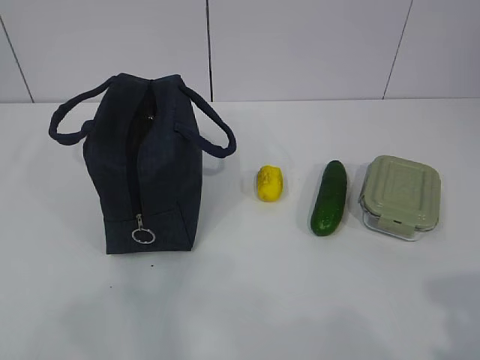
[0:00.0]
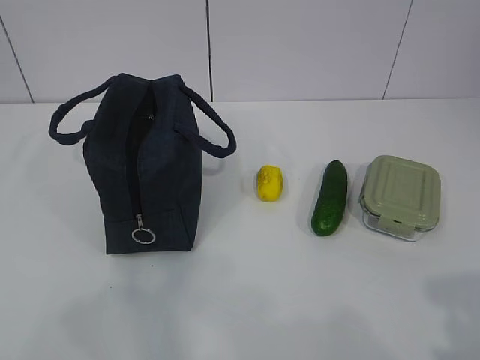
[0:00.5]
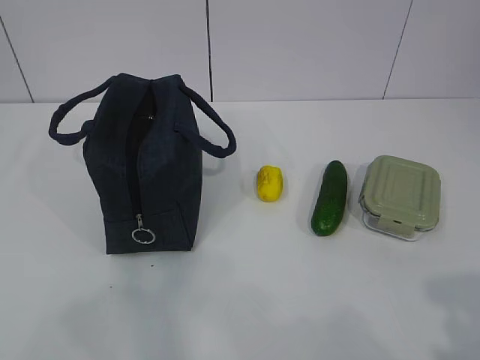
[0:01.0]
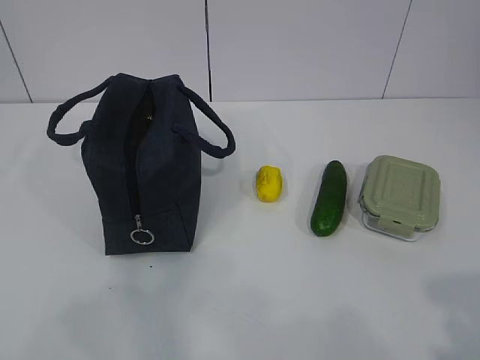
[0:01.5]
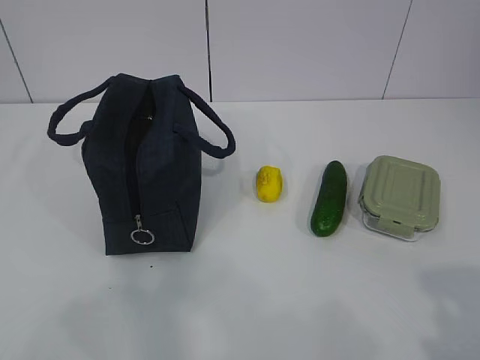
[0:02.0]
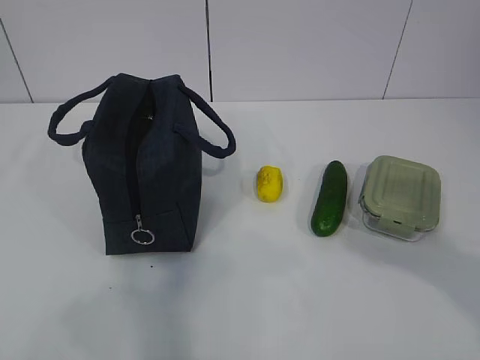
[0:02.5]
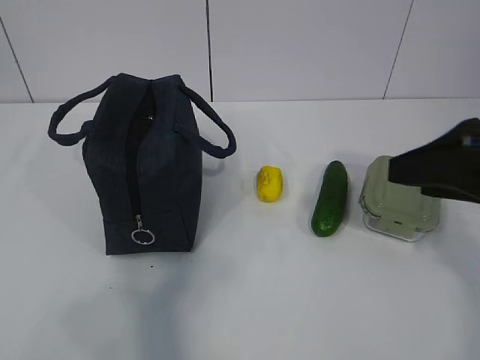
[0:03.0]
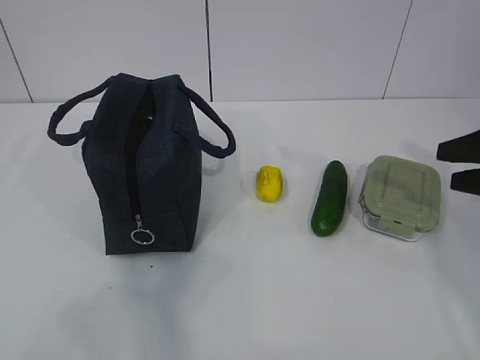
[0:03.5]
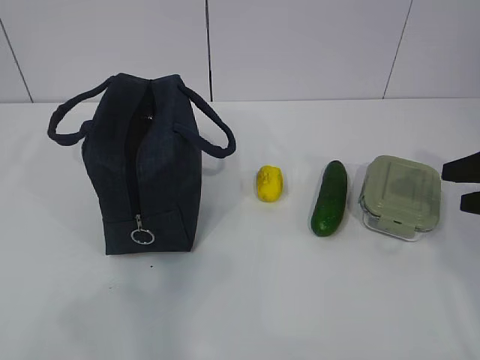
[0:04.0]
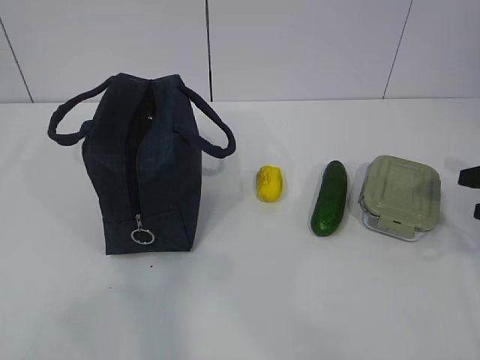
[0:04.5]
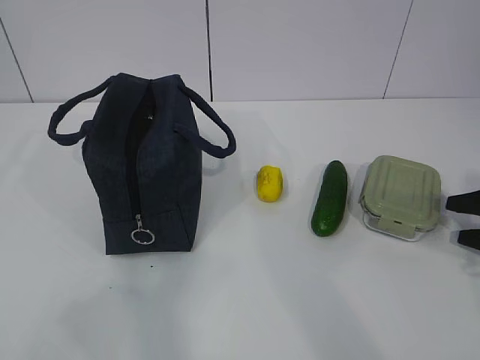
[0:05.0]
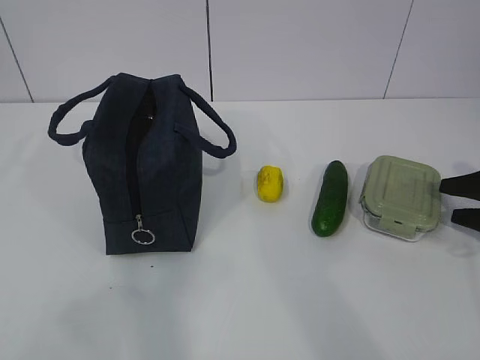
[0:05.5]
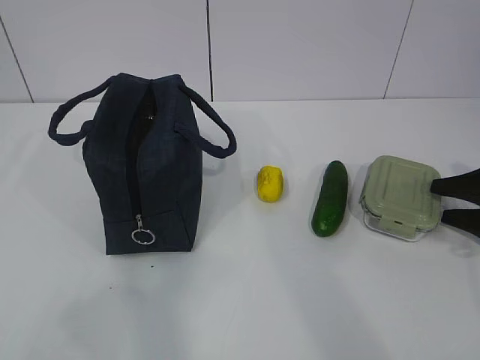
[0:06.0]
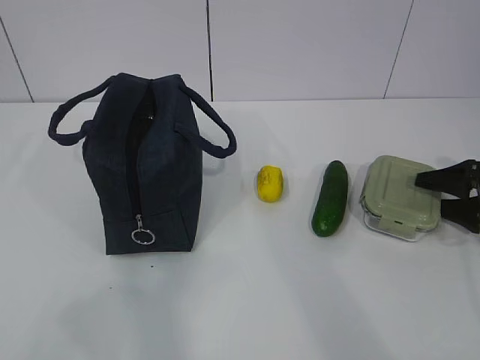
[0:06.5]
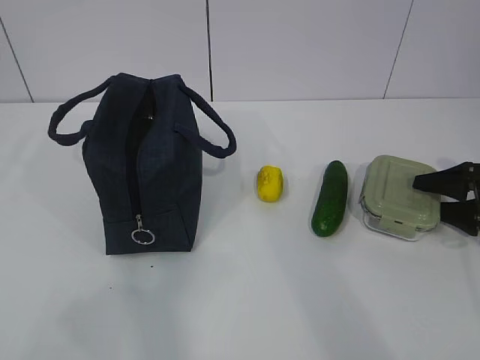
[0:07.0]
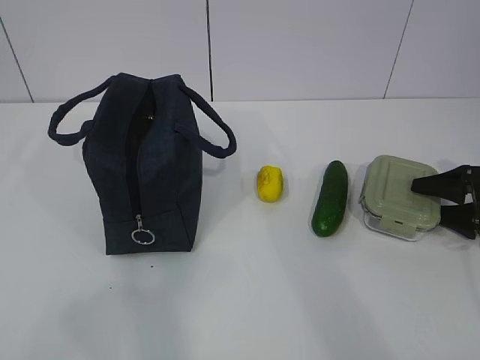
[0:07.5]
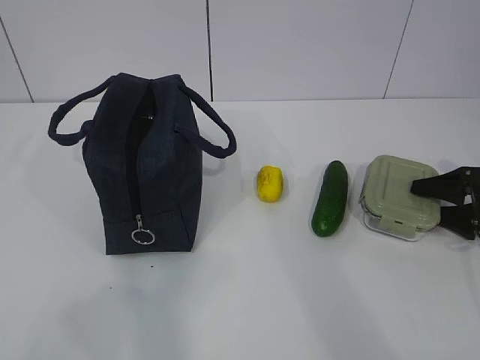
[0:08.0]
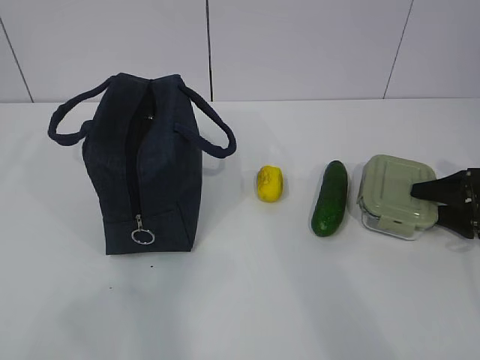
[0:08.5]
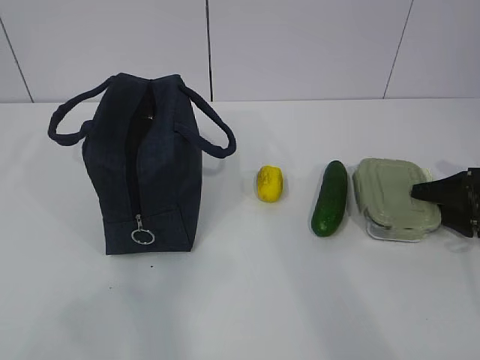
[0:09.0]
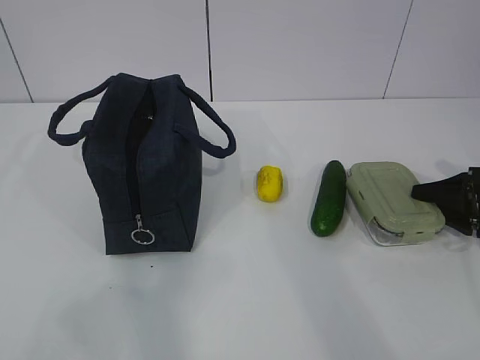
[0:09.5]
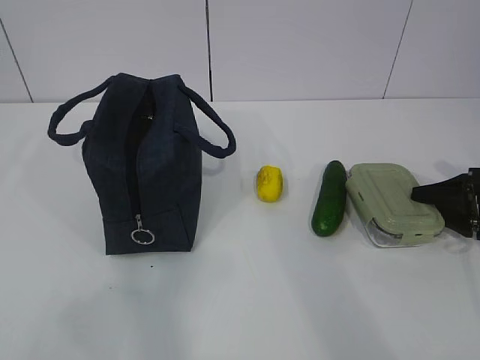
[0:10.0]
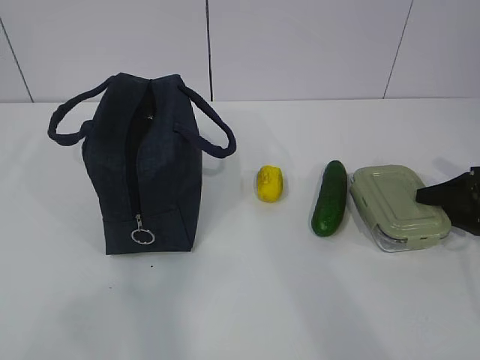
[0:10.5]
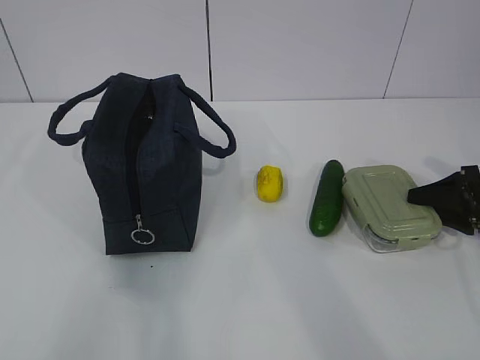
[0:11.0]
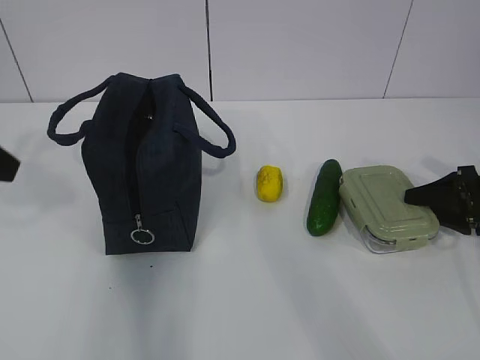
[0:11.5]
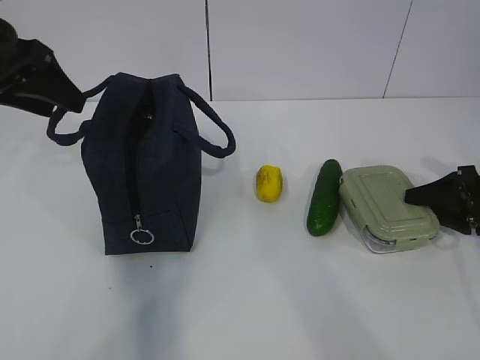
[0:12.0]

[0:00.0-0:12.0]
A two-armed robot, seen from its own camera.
0:02.0 to 0:04.0: The right gripper shifts some 30 cm forward.
0:04.0 to 0:06.0: The right gripper travels downward, forward and to the right by approximately 15 cm.
0:08.0 to 0:10.0: The right gripper closes.
0:10.0 to 0:12.0: The left gripper is displaced forward by some 35 cm, and opens its fingers.

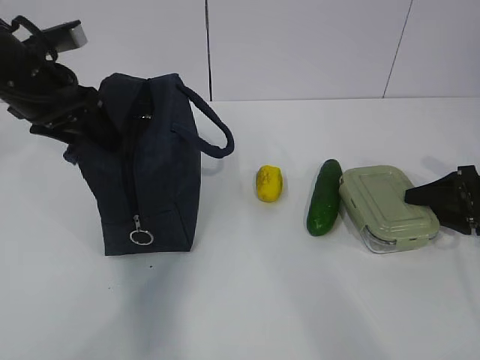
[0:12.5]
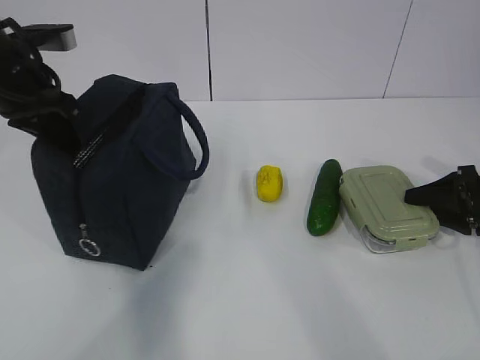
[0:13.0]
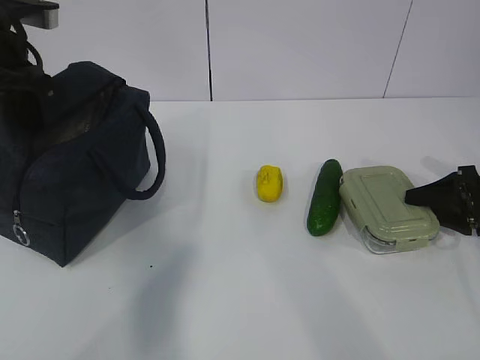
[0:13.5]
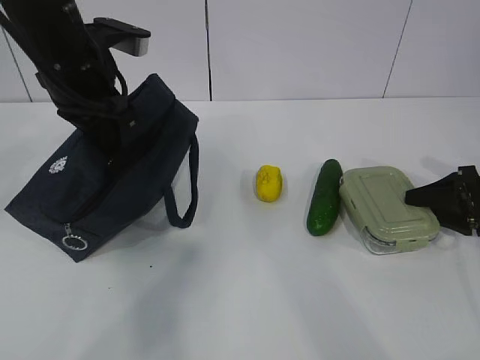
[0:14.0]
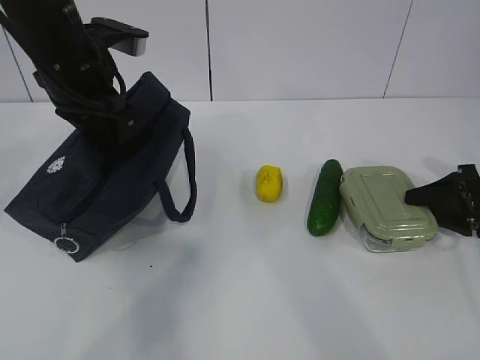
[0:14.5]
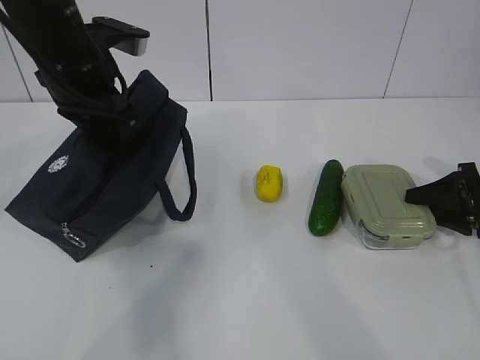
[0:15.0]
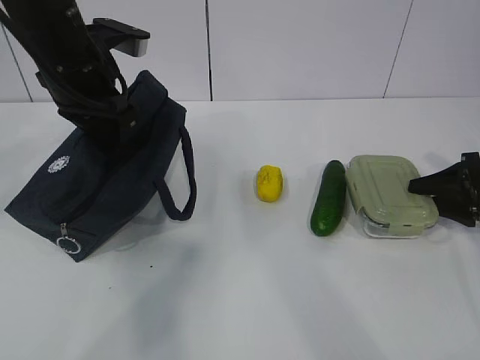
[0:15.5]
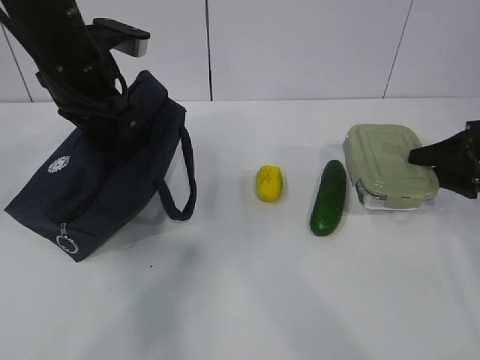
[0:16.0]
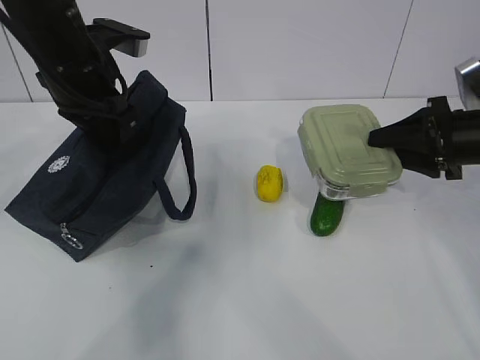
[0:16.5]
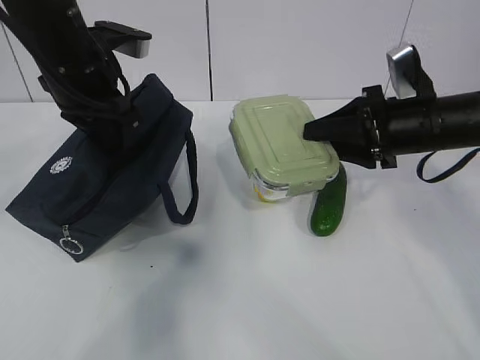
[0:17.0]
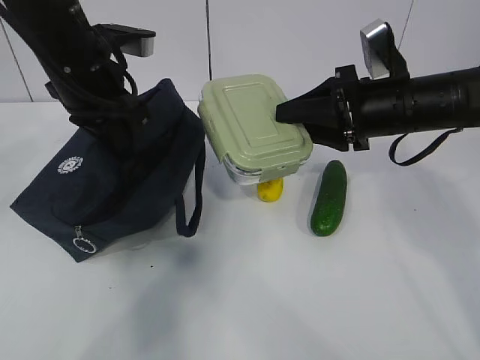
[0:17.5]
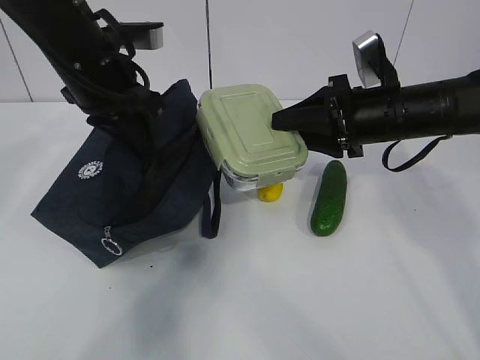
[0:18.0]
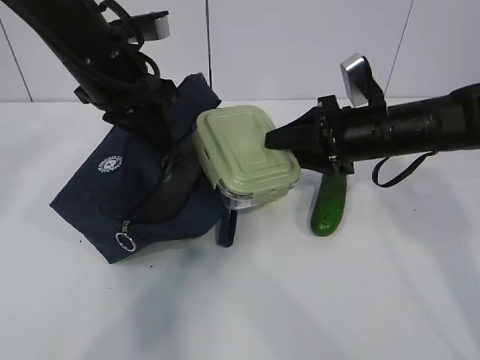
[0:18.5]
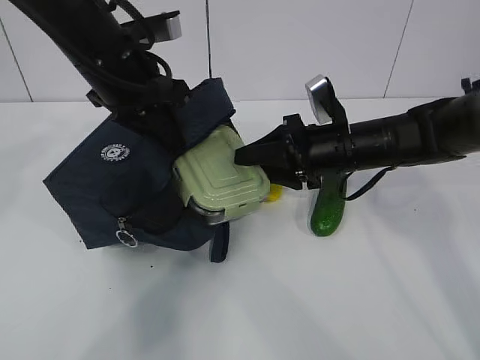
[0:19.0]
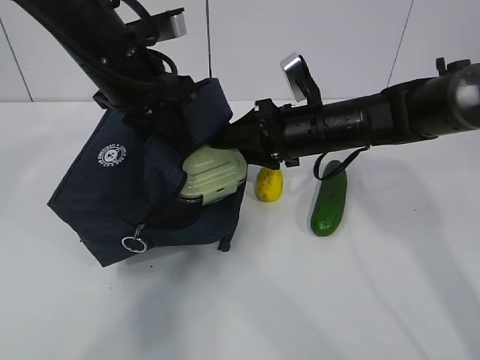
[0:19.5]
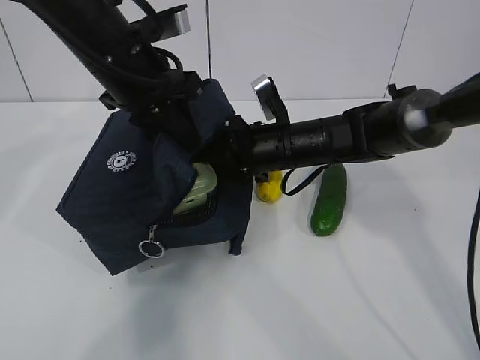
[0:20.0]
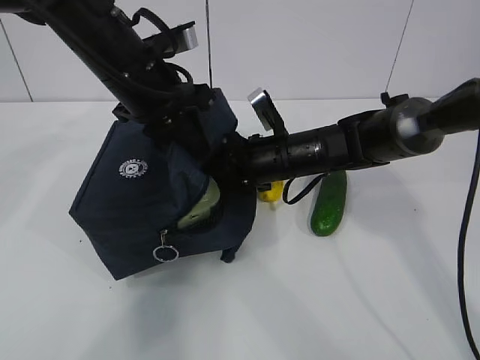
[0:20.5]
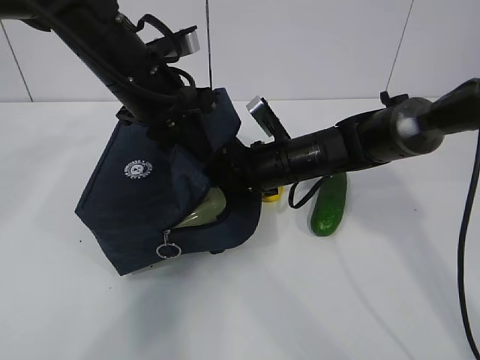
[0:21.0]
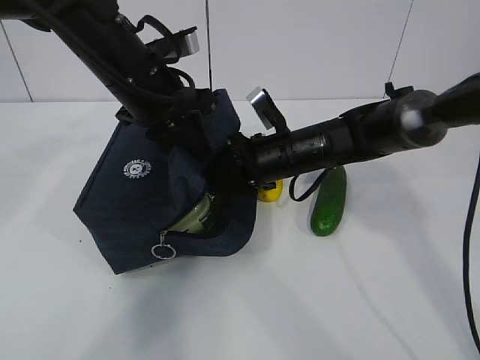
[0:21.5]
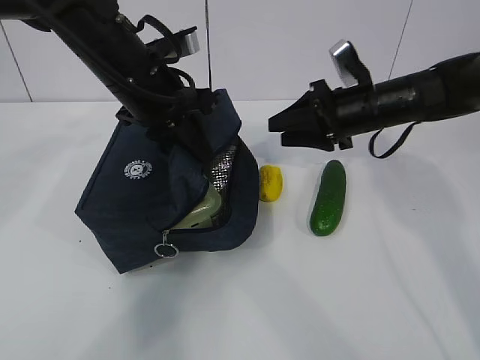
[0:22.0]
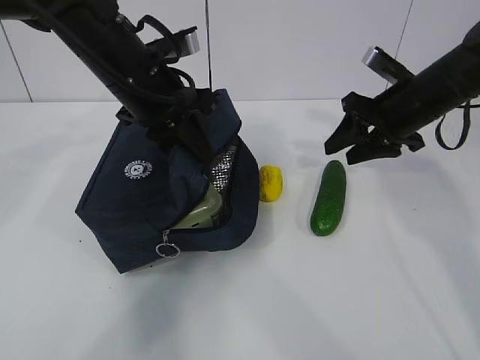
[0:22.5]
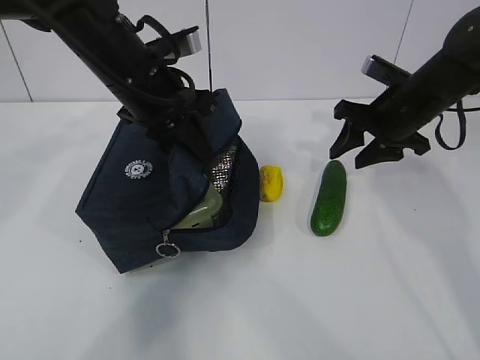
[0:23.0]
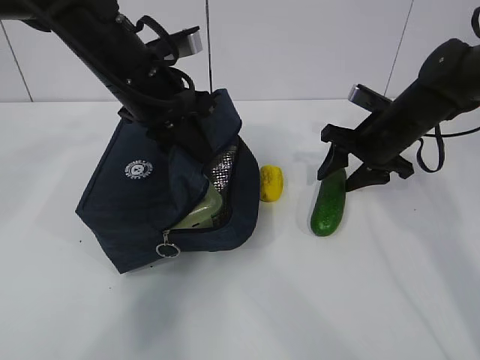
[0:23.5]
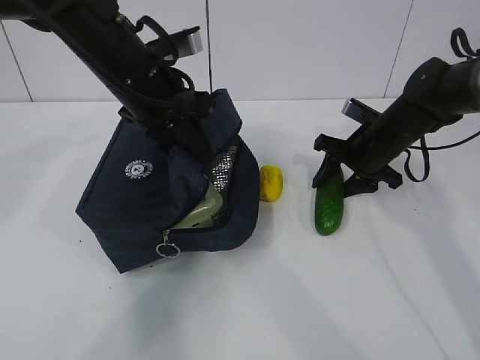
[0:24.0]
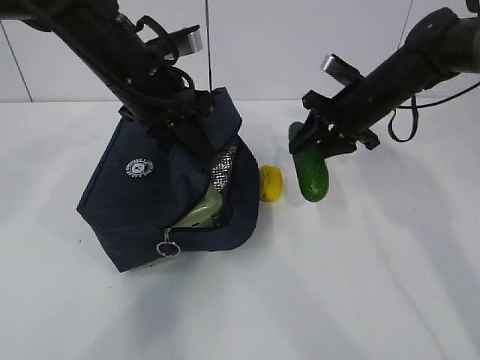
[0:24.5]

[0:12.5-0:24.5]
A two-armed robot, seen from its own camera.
Step, 0:12.5 to 0:15.0: Grab the lunch bag with your left hand.
Step, 0:15.5 to 0:18.0: Place it into the bag with your right hand.
Step, 0:18.5 to 0:20.0: Grab the cucumber with your right hand.
Step, 0:20.5 to 0:22.0: Place it into the bag with your right hand.
Step, 0:22.5 to 0:23.5: Grab the lemon with your right hand.
0:12.5 to 0:14.5: The left gripper moves to the right, some 5 cm, and closes up.
0:14.5 to 0:16.5: The right gripper heads upward and to the left, covering roughly 10 cm.
0:16.5 to 0:18.5: The right gripper shifts roughly 10 cm to the left.
0:18.5 to 0:20.5: The right gripper is displaced to the left and downward by roughly 10 cm.
0:20.5 to 0:22.5: The right gripper is displaced to the right and upward by roughly 15 cm.
0:22.5 to 0:24.5: The right gripper moves approximately 10 cm downward and comes back.

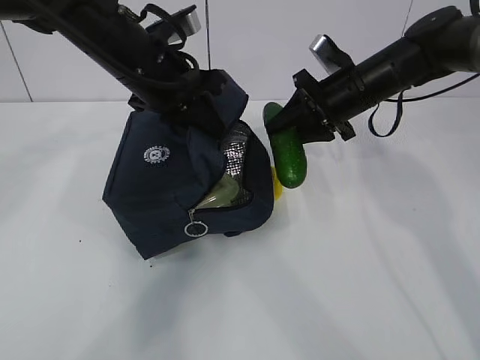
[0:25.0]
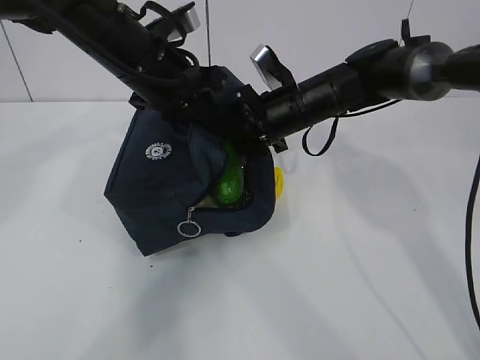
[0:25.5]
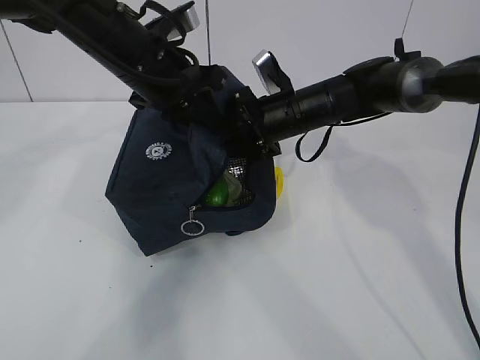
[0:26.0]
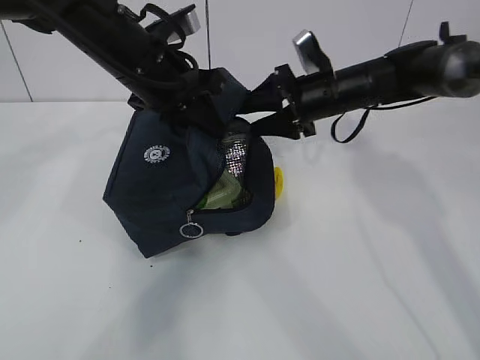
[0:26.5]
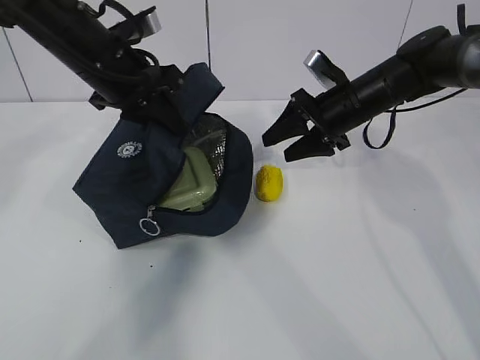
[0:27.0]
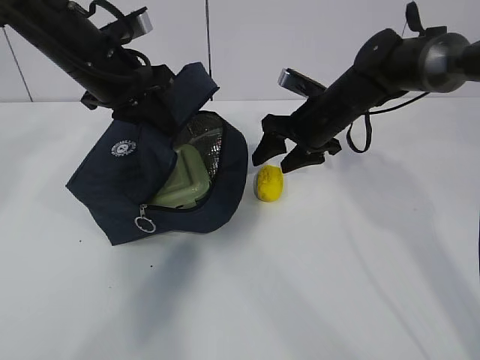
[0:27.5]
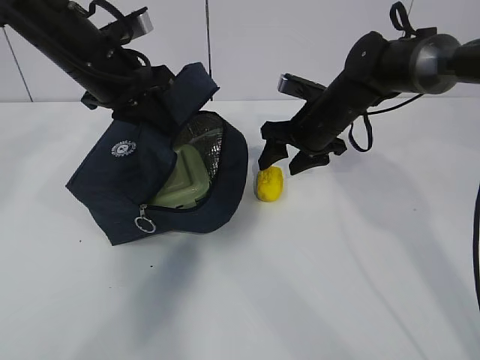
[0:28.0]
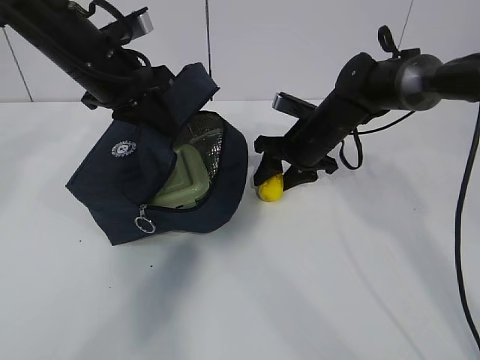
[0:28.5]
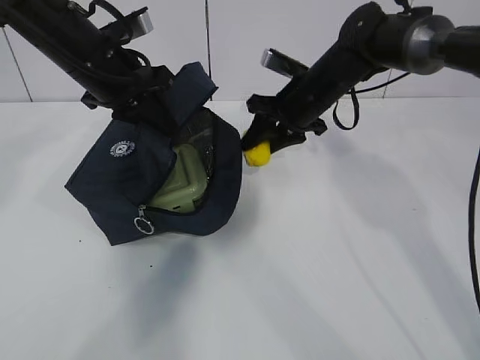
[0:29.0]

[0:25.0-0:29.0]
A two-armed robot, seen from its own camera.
Step, 0:26.5 to 0:28.0: Move the lunch bag to the right.
0:25.0 to 0:27.0: The left gripper travels to the left by some 5 cm. Meanwhile the right gripper moves about 10 cm to the left and comes back.
0:27.0 to 0:29.0: The right gripper heads to the left, covering some 5 cm.
